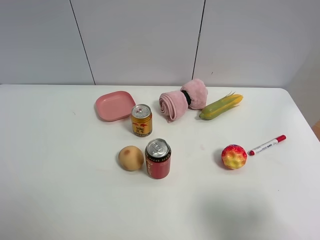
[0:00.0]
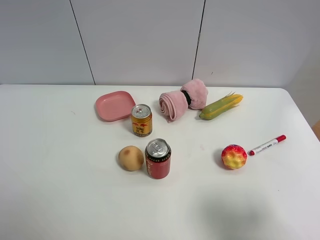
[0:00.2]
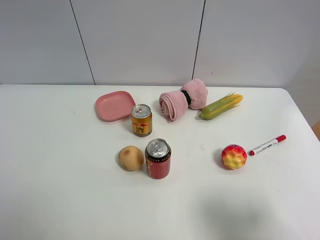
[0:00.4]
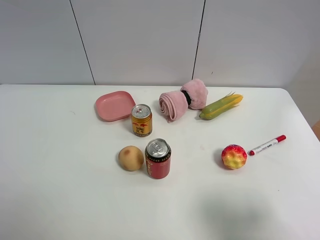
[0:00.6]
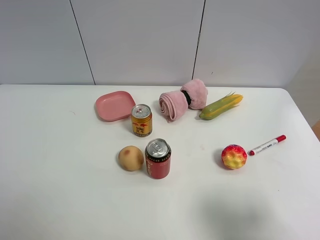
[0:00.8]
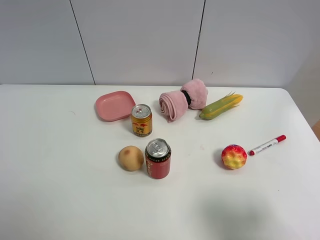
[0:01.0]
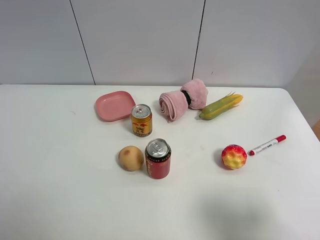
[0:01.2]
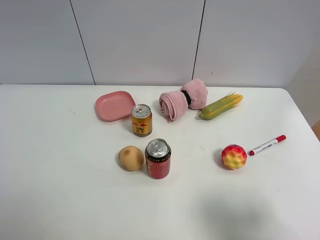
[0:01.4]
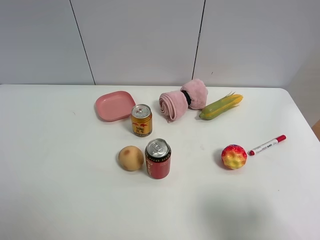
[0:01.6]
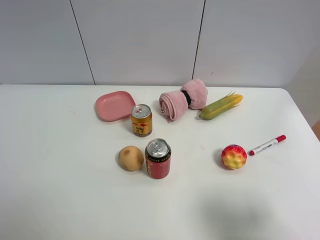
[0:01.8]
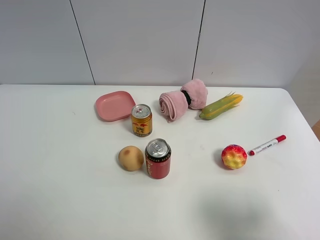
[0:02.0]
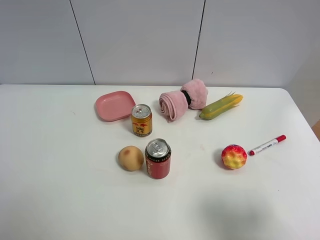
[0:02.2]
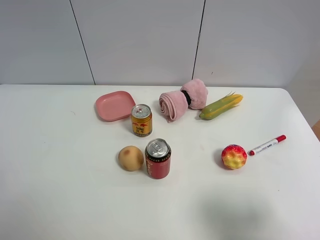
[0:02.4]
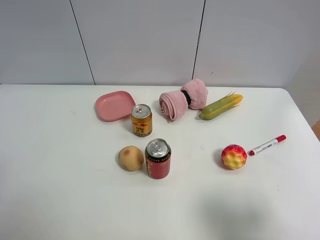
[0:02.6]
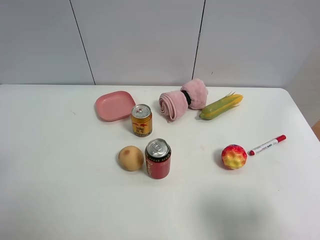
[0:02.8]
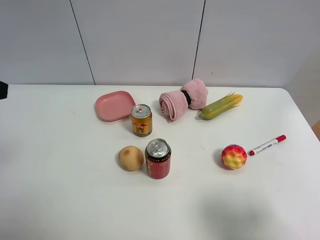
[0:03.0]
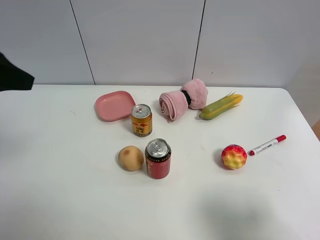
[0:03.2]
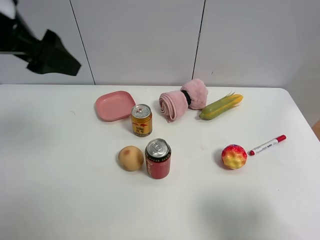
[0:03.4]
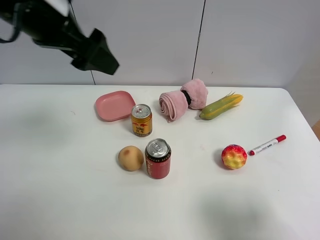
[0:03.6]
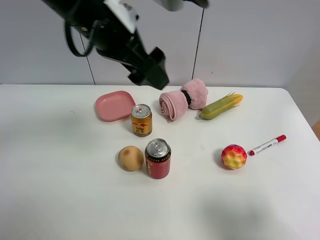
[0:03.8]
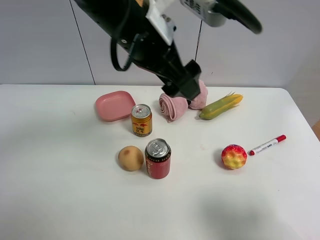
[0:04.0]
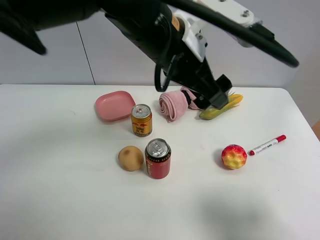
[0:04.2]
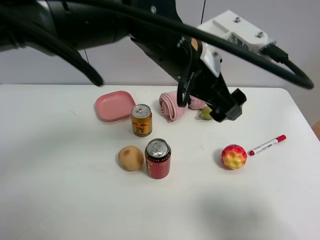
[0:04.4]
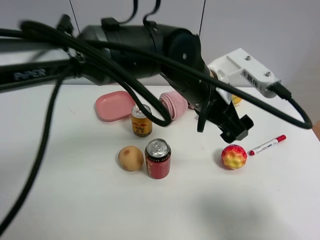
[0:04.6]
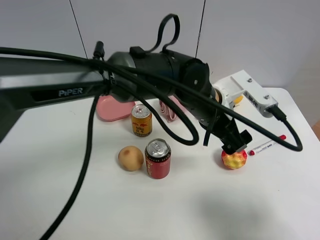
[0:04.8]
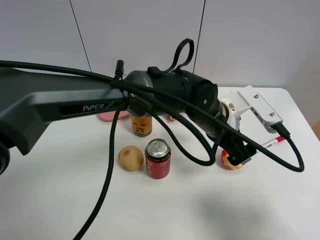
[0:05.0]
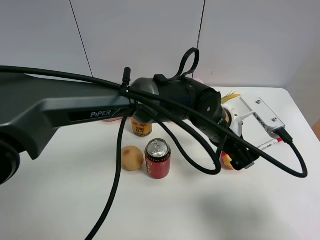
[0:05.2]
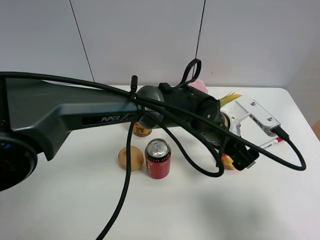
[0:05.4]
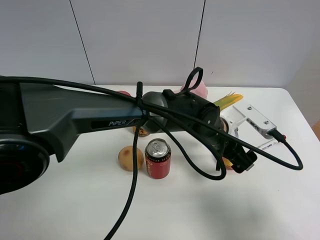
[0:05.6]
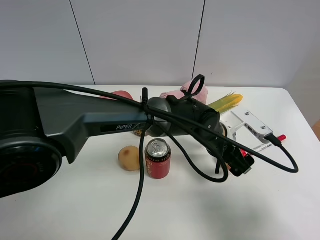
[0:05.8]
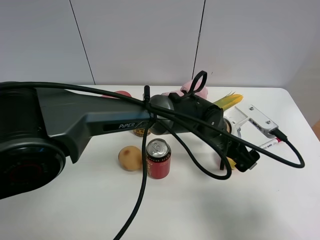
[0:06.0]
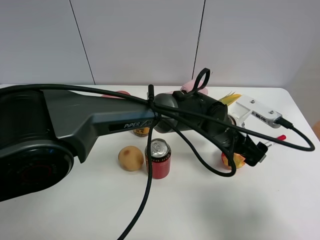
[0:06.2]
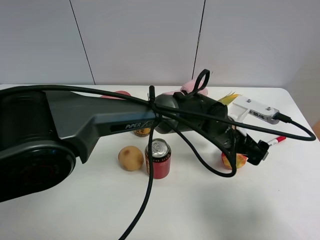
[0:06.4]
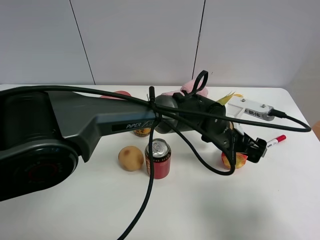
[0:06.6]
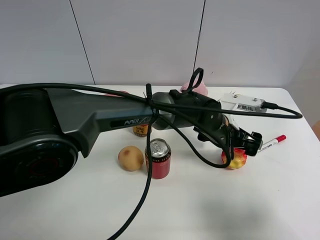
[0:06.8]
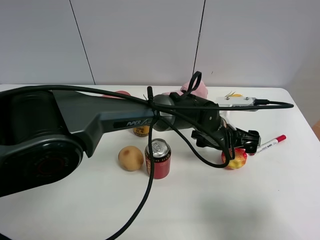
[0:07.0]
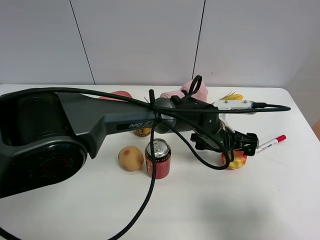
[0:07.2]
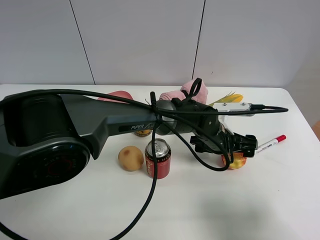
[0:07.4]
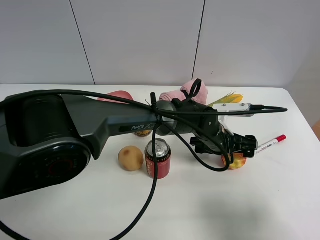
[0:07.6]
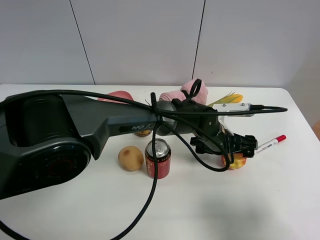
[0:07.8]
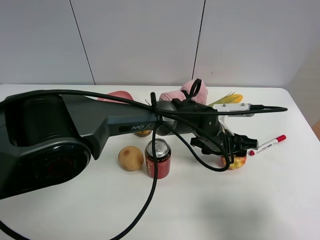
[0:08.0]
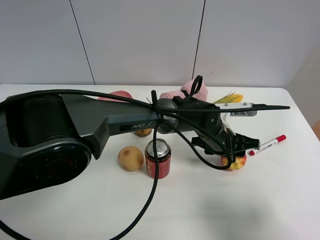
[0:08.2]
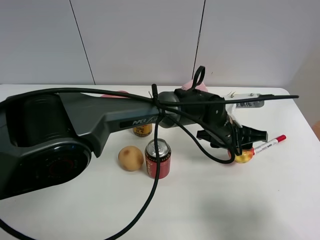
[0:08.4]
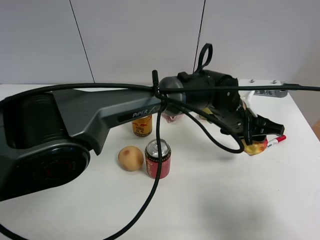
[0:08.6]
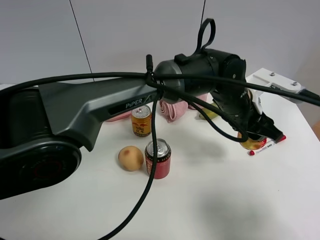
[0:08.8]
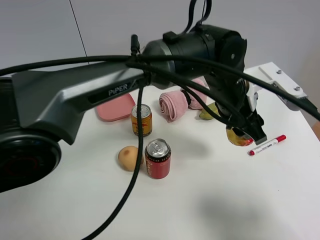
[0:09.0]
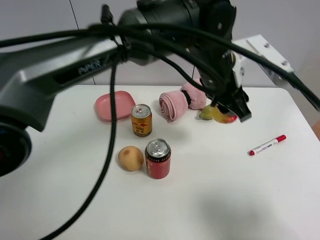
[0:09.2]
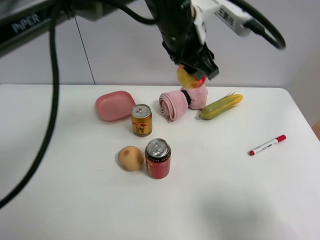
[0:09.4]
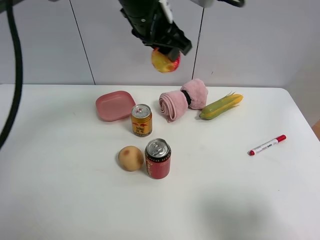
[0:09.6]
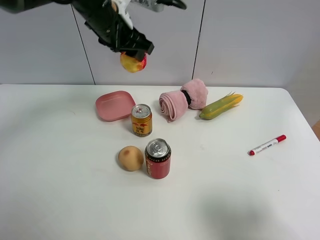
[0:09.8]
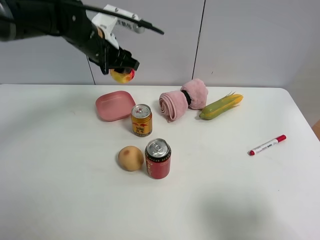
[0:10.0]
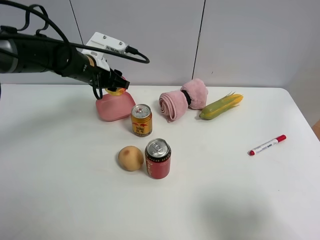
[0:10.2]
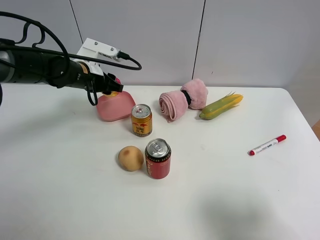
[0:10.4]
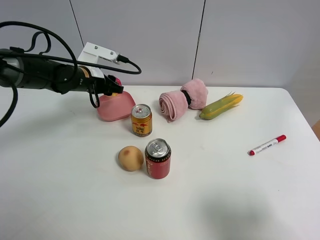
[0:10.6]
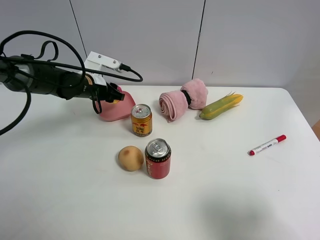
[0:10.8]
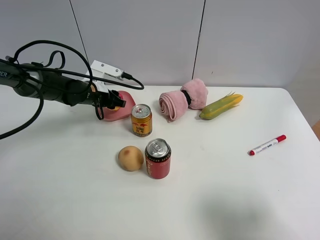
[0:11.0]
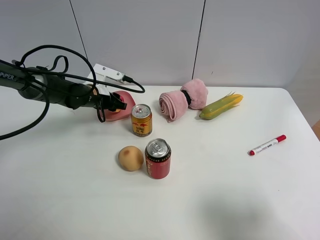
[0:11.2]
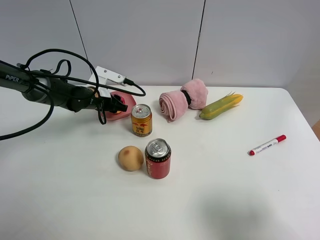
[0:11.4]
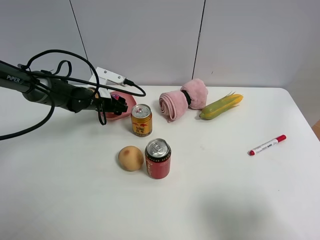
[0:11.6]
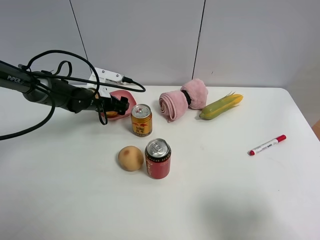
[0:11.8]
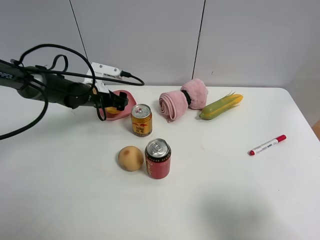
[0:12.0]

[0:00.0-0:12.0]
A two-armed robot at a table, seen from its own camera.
Task of the whole recording: the gripper move the object.
Step, 0:00.0 to 0:08.0: Grasp the colorful ball with the left gripper.
0:00.0 to 0:01.6: Neither gripper changes place.
0:03.0 to 0:04.4: The left gripper shifts about 35 cm to the right.
0:04.4 to 0:06.0: The left gripper travels downward and to the right by some 20 cm.
0:07.6 to 0:09.0: The left gripper travels upward by roughly 15 cm, and closes up.
0:09.0 to 0:10.4: The left gripper shifts some 30 cm to the left.
0:10.4 to 0:12.0: The left gripper shifts some 5 cm downward, and opens up.

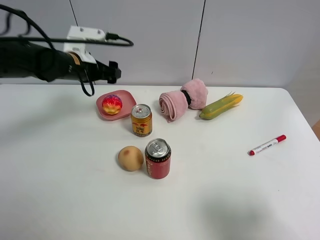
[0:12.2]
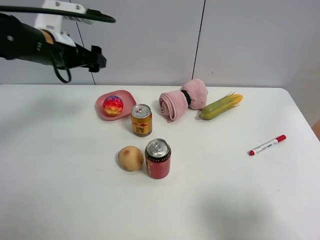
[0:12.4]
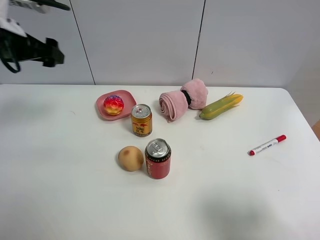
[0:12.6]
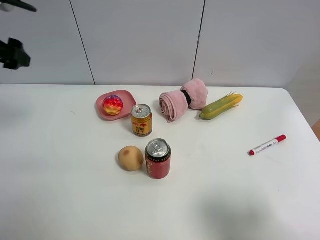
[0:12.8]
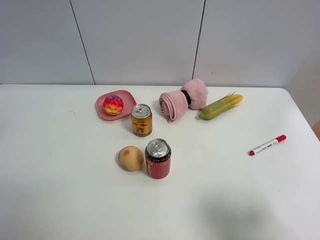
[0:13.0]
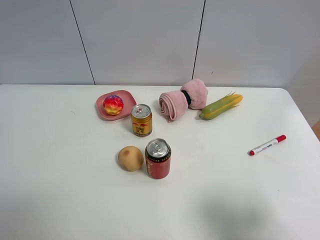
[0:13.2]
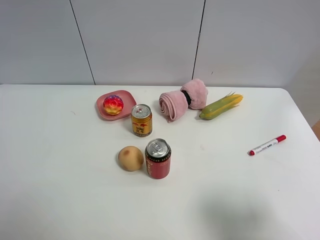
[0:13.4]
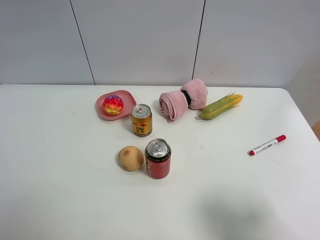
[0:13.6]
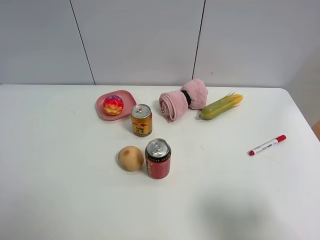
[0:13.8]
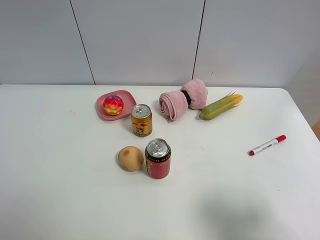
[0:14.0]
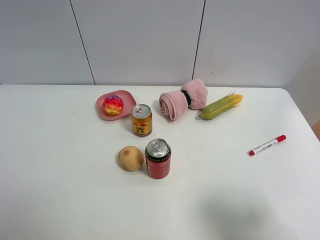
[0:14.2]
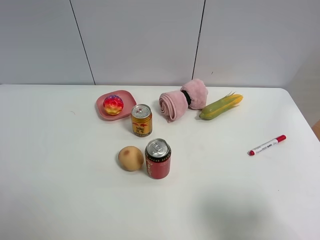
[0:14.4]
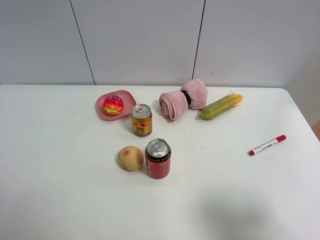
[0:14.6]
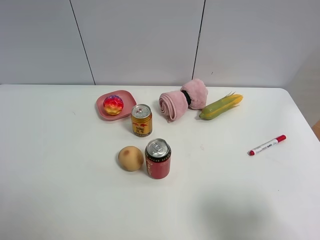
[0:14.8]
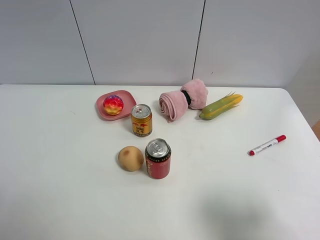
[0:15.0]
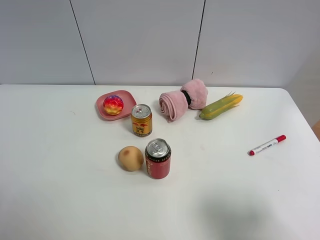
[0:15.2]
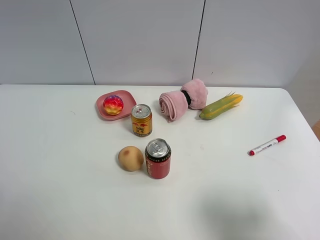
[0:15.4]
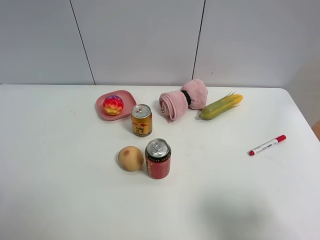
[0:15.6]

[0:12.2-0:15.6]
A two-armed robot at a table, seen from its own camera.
Task of the whole recording: the gripper move the object.
0:12.2 to 0:13.8: The left gripper is displaced backward by some 35 cm.

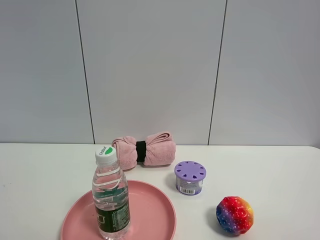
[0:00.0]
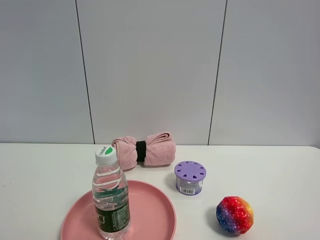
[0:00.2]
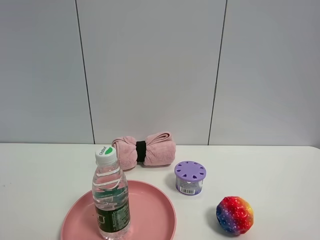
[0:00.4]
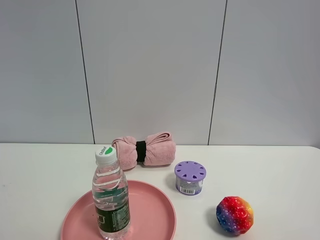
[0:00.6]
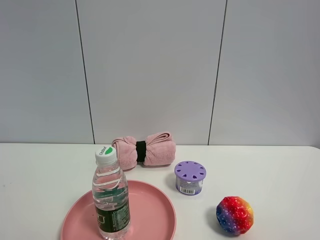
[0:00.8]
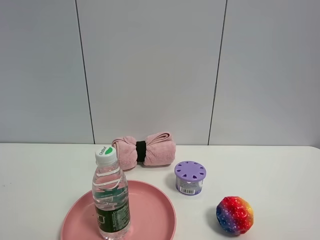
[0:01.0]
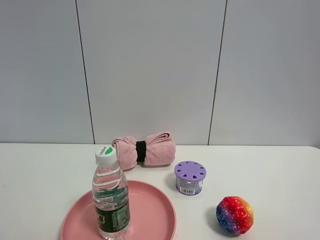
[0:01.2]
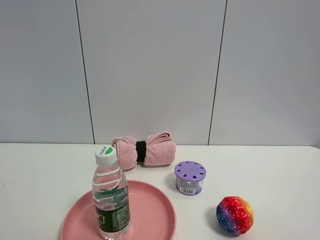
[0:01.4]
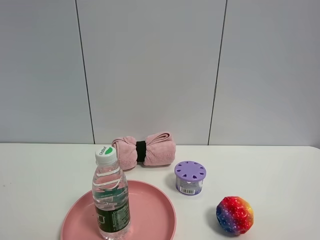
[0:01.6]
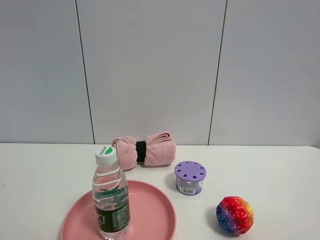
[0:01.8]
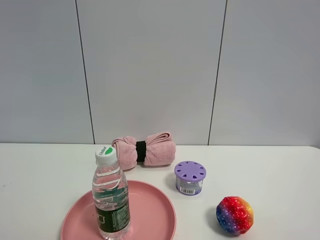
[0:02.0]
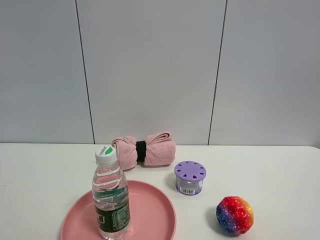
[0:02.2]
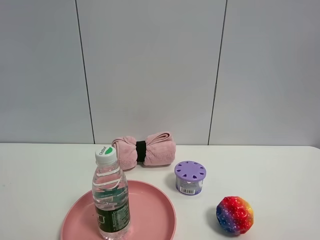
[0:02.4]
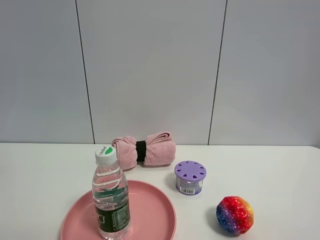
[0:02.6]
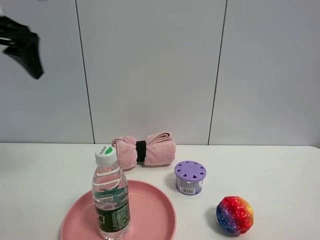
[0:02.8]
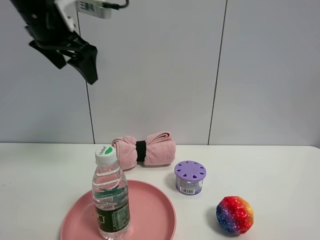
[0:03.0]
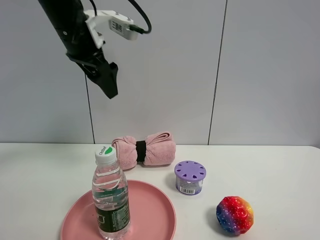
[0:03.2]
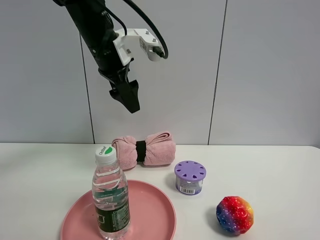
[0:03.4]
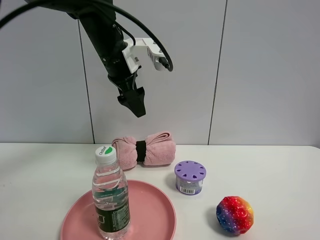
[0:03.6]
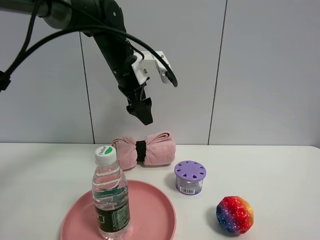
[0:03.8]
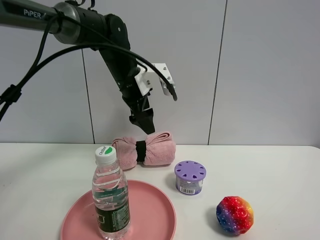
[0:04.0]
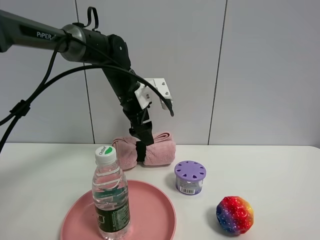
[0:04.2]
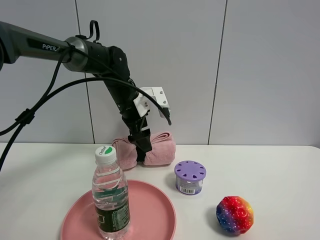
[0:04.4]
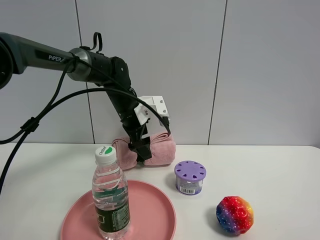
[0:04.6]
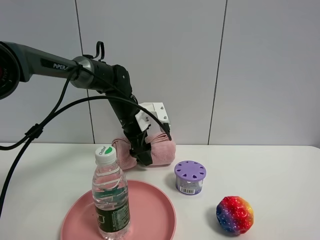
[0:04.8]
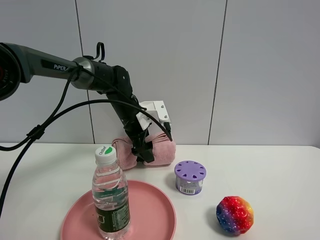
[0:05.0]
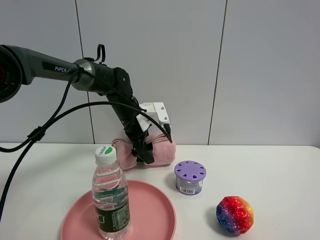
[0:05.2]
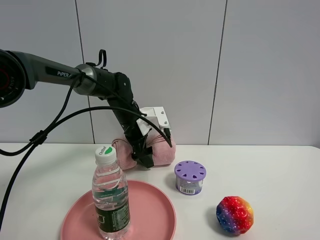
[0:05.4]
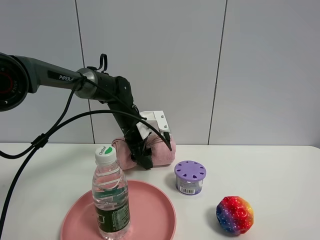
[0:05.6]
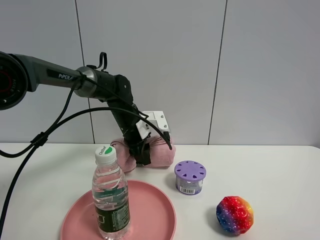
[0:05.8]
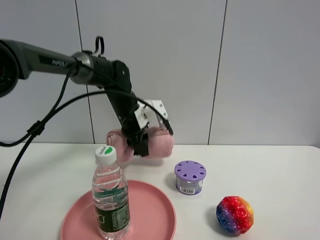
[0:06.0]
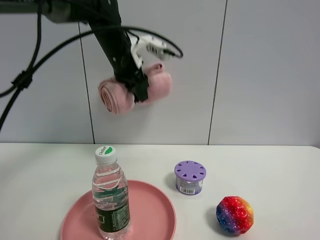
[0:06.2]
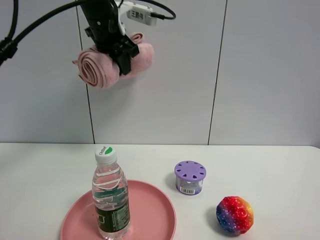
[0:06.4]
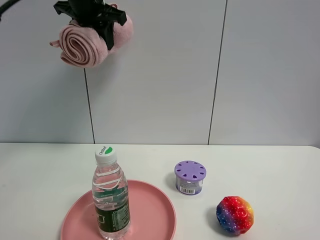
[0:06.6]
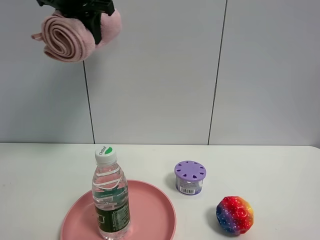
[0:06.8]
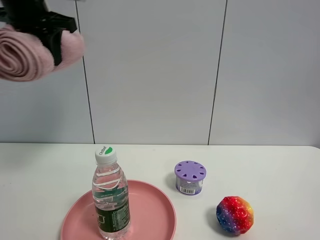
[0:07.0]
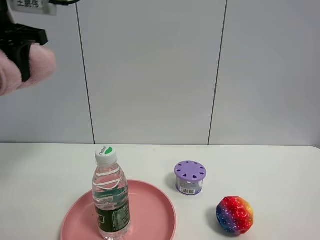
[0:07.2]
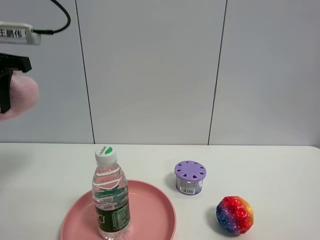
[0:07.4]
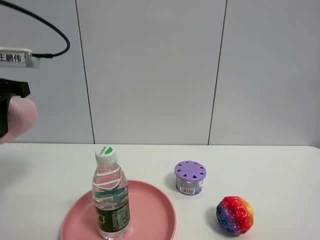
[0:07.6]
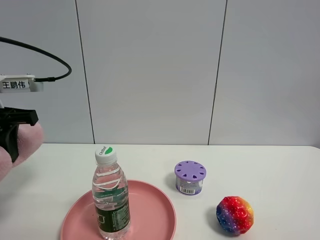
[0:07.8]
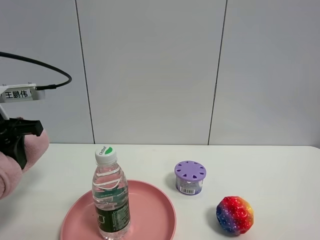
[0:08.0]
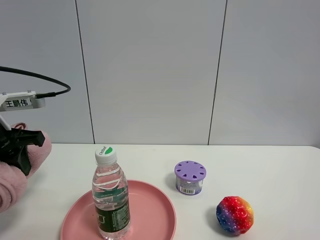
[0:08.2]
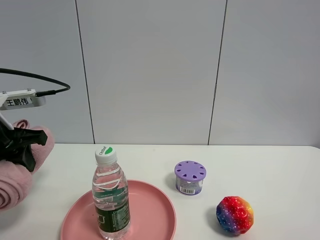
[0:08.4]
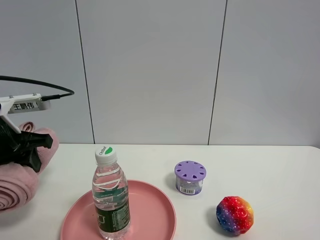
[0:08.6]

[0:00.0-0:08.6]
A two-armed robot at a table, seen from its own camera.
Task of the whole recording: the gripper move the object.
Step, 0:00.0 to 0:05.8: Grasp the pink towel with the left gripper.
0:00.0 to 0:01.4: The two grippers keep their place.
0:01.4 to 0:02.8: The left gripper goes about 35 cm forward.
0:02.8 to 0:04.4: The left gripper travels downward, to the right and forward by some 30 cm.
0:04.4 to 0:05.8: The left gripper moves downward, roughly 5 cm, and closes its fingers.
0:05.8 to 0:07.2: The left gripper heads upward, to the left and backward, covering some 35 cm.
0:07.2 to 0:08.6: The left gripper travels downward by approximately 20 cm.
